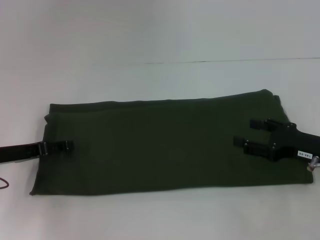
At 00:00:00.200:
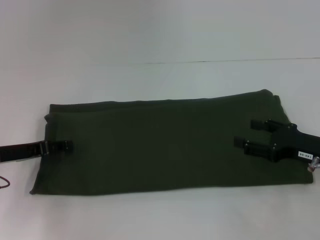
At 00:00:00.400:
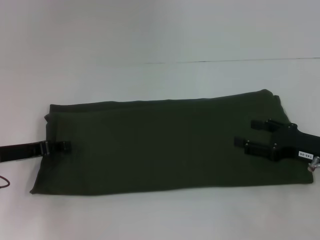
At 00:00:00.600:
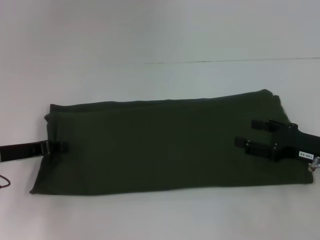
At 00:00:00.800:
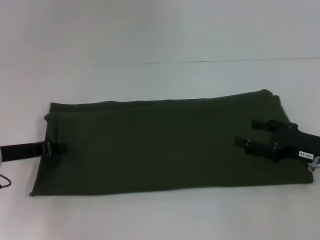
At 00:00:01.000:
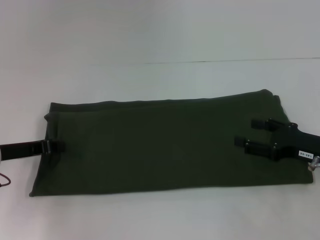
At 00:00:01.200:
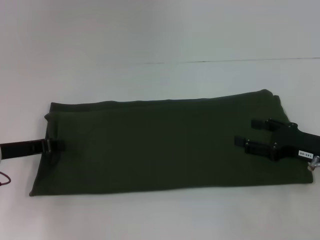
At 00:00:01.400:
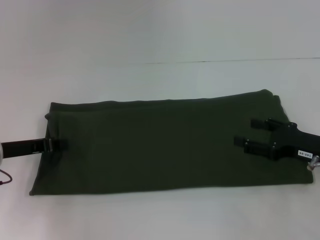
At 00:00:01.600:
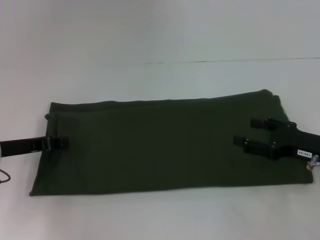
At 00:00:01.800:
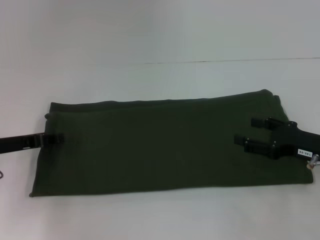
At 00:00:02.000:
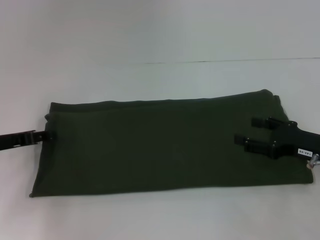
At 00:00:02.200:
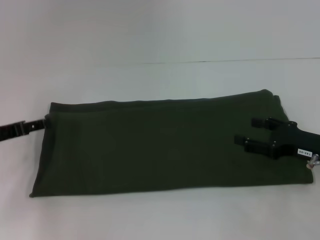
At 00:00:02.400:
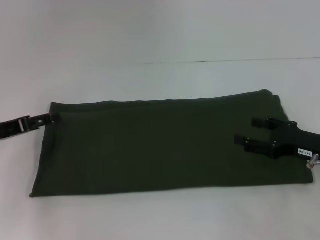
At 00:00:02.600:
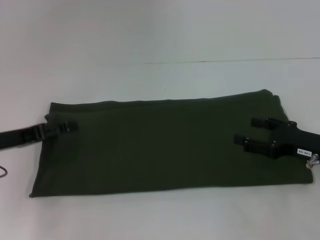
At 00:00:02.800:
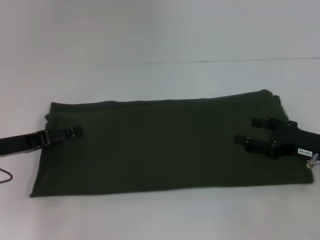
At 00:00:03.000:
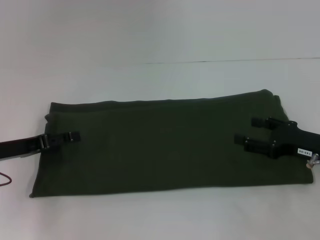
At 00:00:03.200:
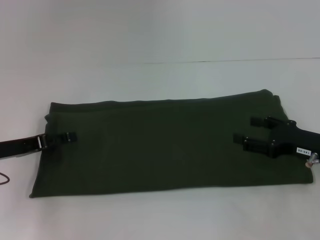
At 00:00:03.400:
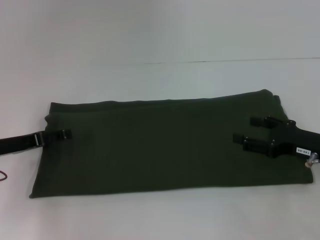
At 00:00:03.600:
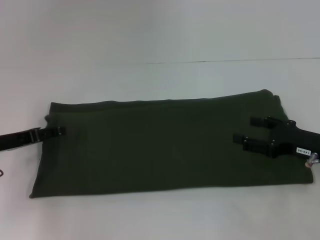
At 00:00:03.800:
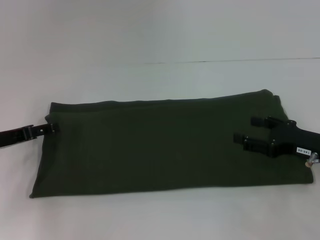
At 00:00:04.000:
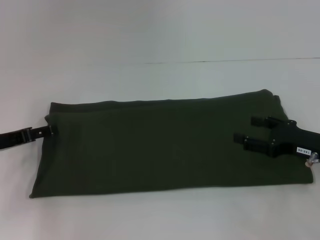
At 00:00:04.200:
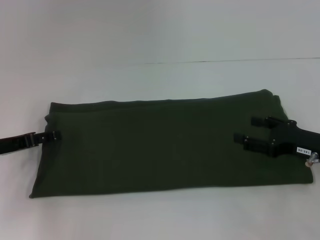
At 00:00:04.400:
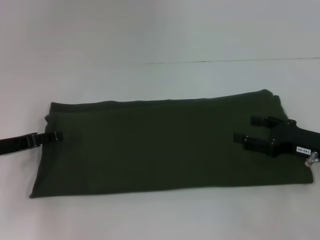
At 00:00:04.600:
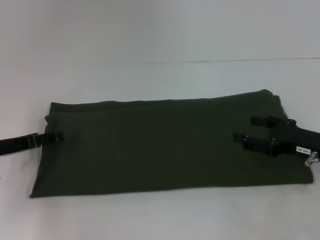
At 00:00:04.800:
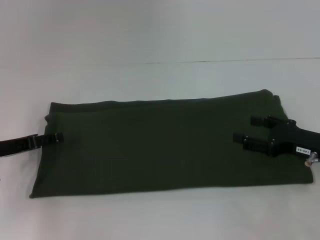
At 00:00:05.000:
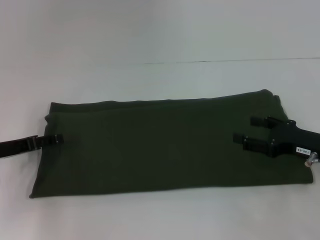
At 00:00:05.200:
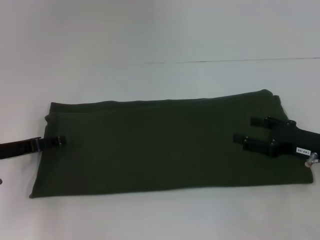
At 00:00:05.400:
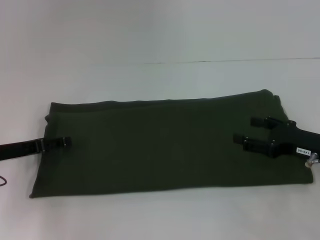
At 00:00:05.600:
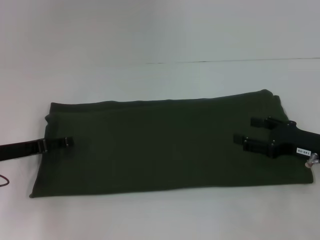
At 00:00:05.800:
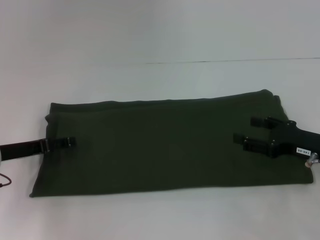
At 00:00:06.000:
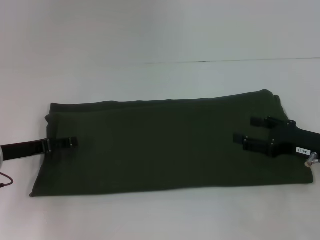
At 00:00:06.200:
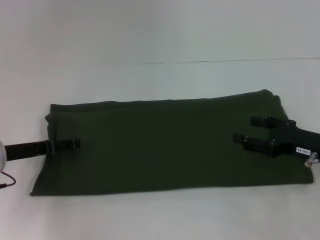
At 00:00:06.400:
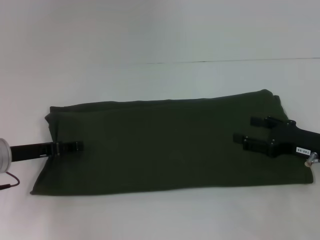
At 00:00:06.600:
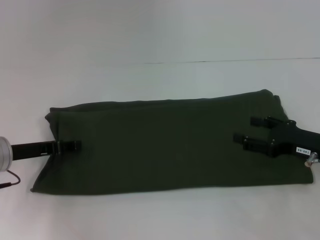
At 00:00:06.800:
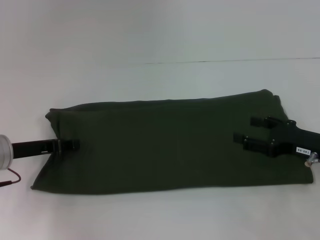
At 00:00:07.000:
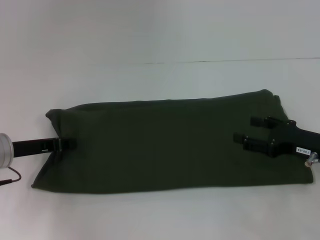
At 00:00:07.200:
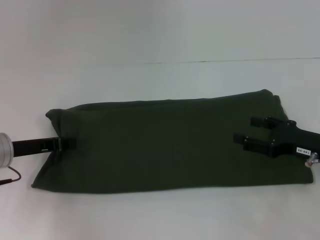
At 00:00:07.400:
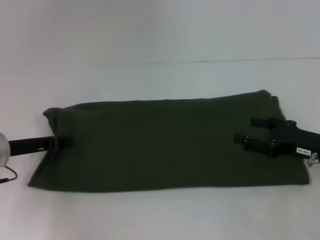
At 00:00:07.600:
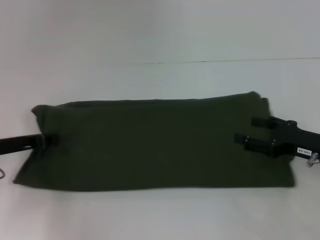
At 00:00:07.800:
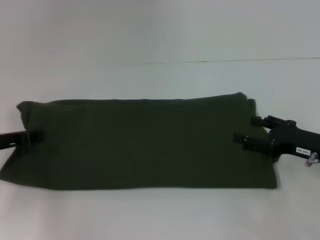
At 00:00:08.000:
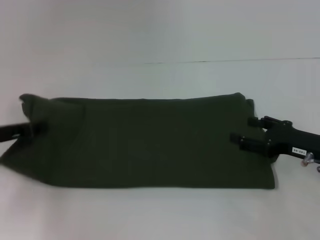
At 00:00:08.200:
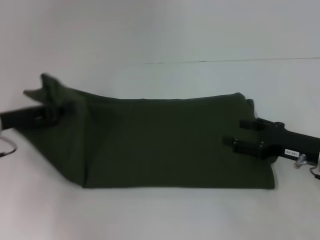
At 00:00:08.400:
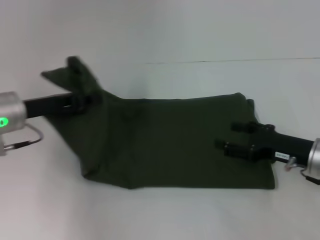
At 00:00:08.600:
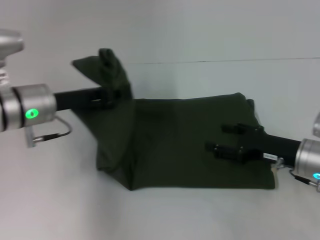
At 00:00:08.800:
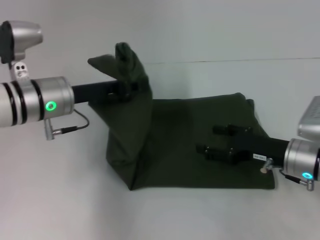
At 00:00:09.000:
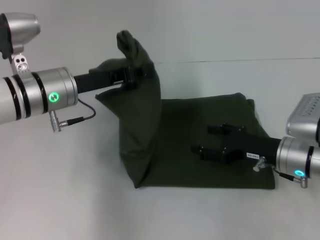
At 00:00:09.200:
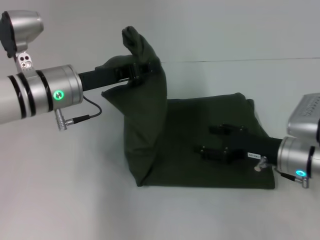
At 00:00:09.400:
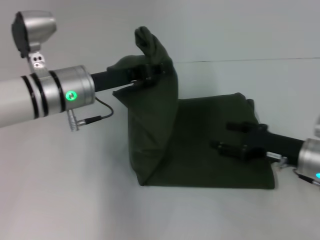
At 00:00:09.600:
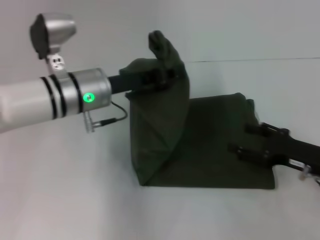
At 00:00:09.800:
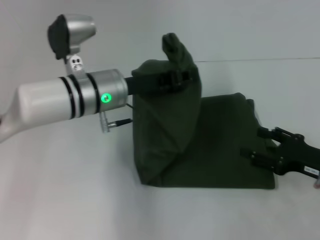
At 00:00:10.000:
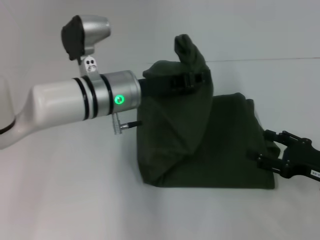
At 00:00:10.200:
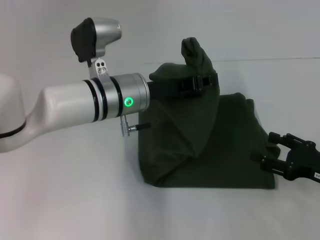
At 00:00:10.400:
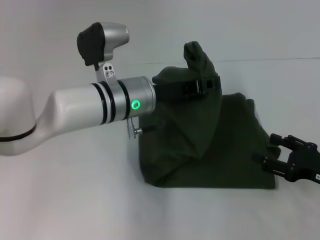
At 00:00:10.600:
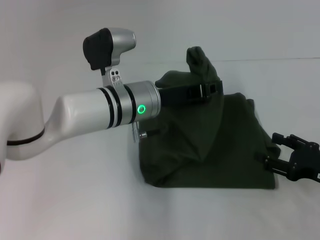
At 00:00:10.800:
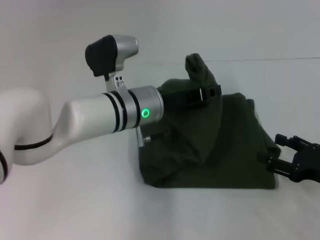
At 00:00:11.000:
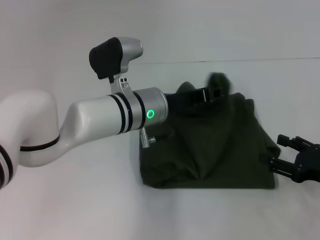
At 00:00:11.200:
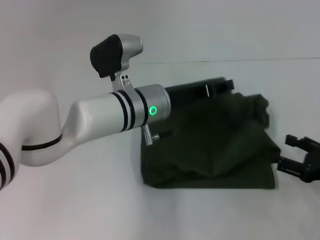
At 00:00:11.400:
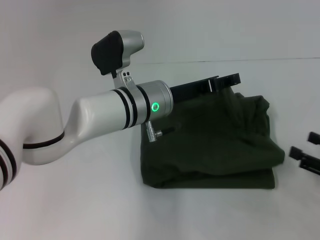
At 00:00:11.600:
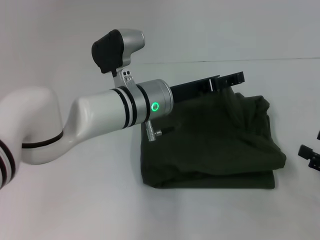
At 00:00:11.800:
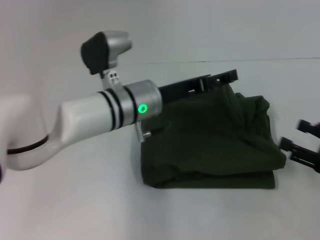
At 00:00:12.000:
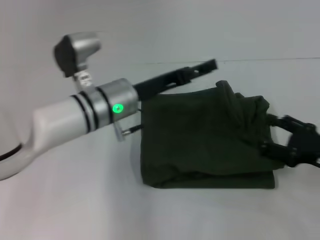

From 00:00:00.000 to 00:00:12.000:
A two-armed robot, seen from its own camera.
Step, from 00:00:00.000 to 00:00:11.600: Fold the clothes with your left hand.
From 00:00:00.000 to 00:00:01.600: The left gripper closes up.
From 00:00:01.600 to 00:00:03.000: The left gripper opens its fingers.
From 00:00:03.000 to 00:00:06.000: The grippers move only a little.
From 00:00:06.000 to 00:00:07.600: The left gripper closes.
From 00:00:07.600 to 00:00:09.000: The right gripper travels to the left by roughly 5 cm, while the left gripper moves to the right and upward, roughly 15 cm.
From 00:00:09.000 to 00:00:10.400: The left gripper goes some 10 cm to the right, while the right gripper moves to the right and backward, some 10 cm.
From 00:00:10.400 to 00:00:12.000: The left gripper opens its fingers.

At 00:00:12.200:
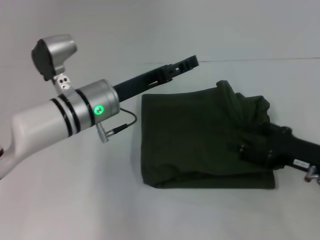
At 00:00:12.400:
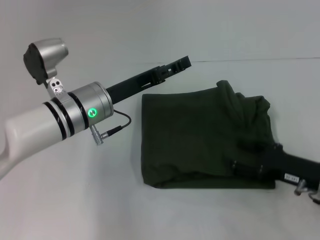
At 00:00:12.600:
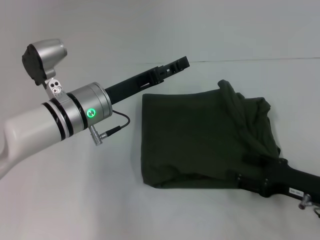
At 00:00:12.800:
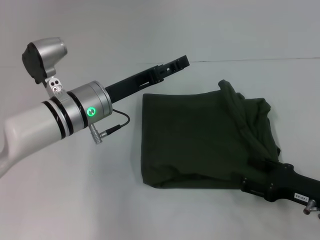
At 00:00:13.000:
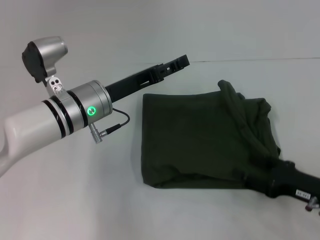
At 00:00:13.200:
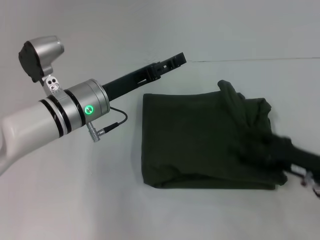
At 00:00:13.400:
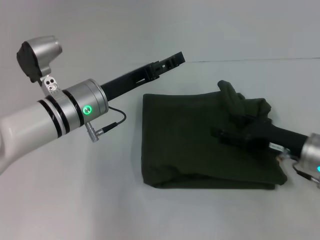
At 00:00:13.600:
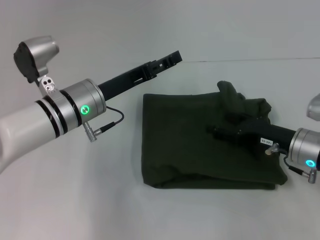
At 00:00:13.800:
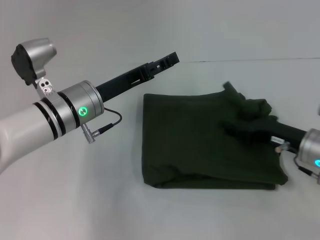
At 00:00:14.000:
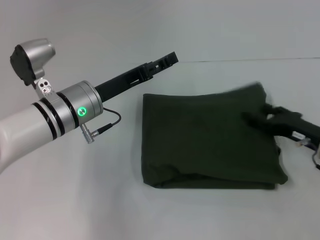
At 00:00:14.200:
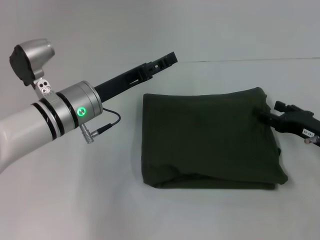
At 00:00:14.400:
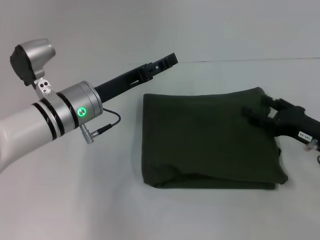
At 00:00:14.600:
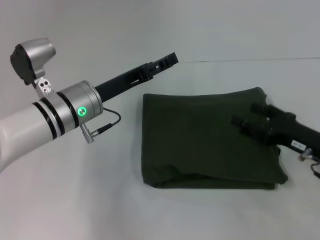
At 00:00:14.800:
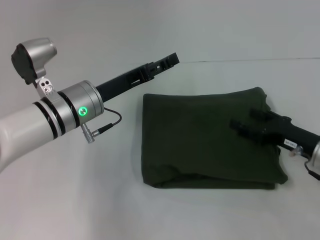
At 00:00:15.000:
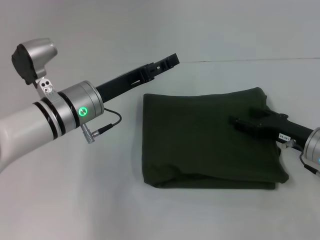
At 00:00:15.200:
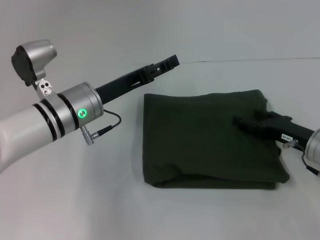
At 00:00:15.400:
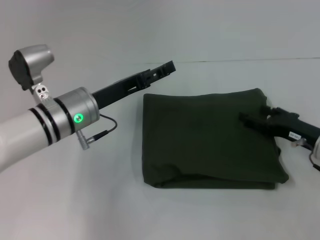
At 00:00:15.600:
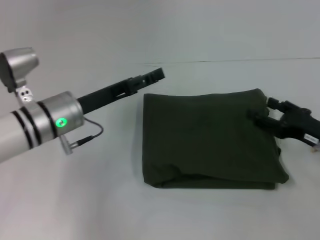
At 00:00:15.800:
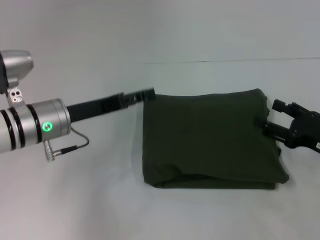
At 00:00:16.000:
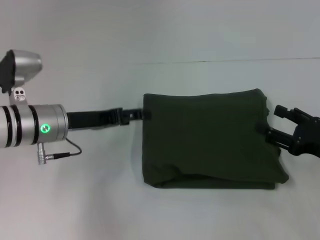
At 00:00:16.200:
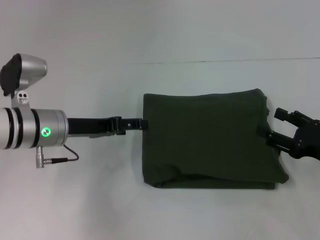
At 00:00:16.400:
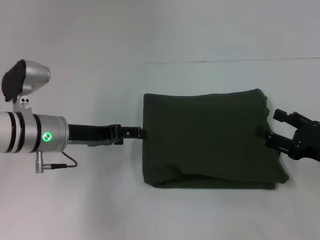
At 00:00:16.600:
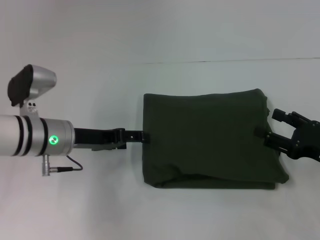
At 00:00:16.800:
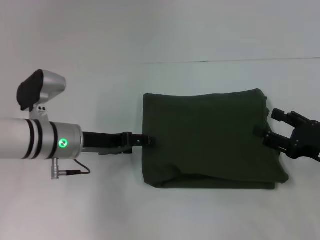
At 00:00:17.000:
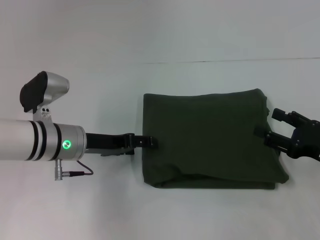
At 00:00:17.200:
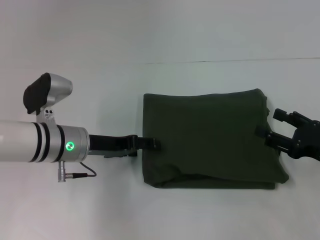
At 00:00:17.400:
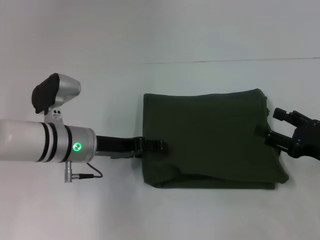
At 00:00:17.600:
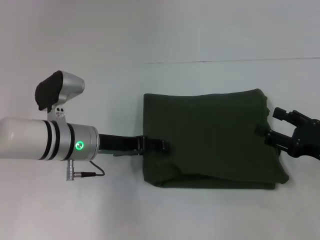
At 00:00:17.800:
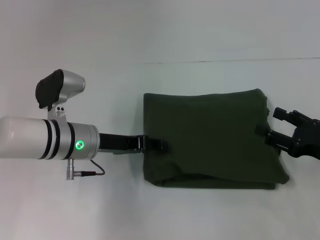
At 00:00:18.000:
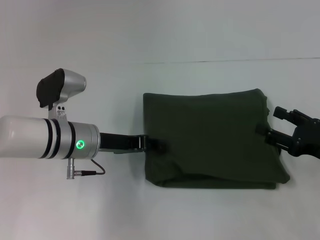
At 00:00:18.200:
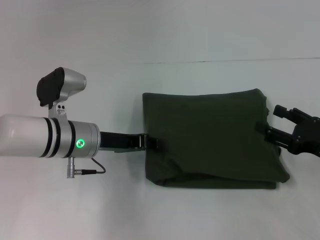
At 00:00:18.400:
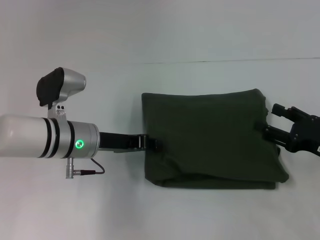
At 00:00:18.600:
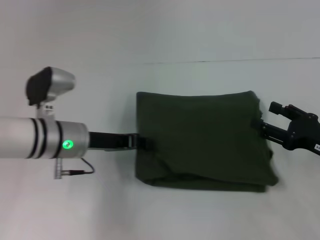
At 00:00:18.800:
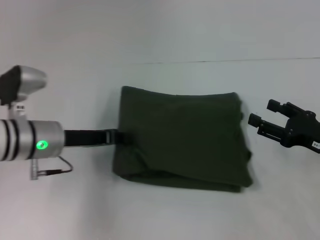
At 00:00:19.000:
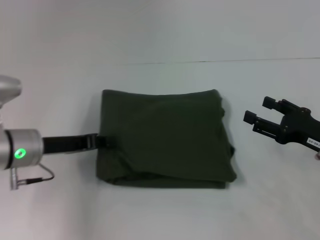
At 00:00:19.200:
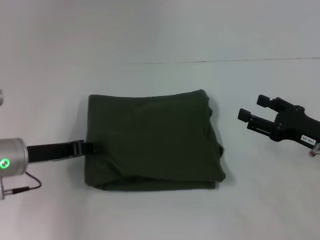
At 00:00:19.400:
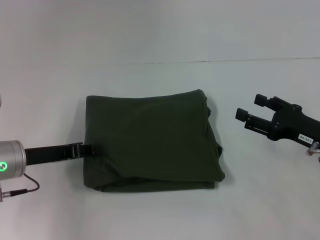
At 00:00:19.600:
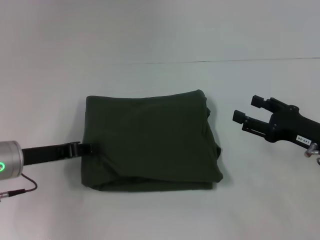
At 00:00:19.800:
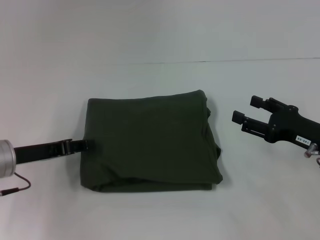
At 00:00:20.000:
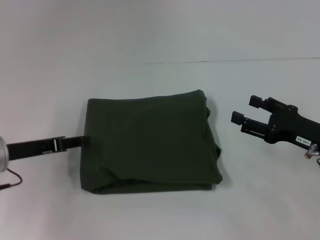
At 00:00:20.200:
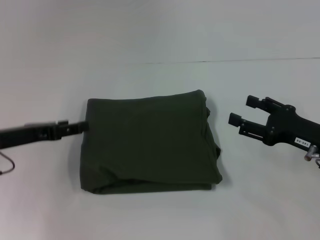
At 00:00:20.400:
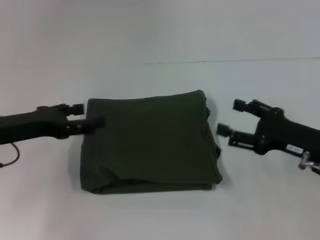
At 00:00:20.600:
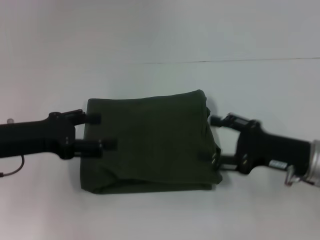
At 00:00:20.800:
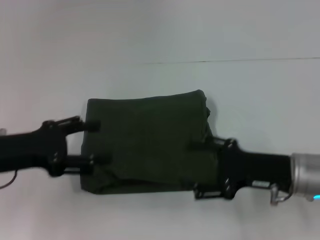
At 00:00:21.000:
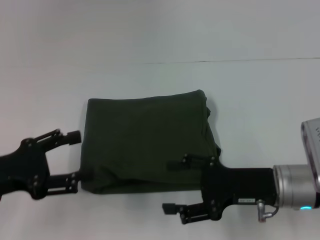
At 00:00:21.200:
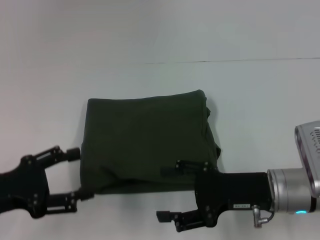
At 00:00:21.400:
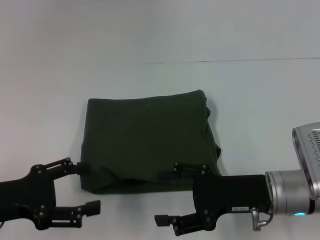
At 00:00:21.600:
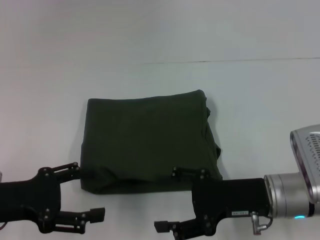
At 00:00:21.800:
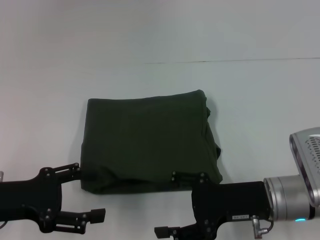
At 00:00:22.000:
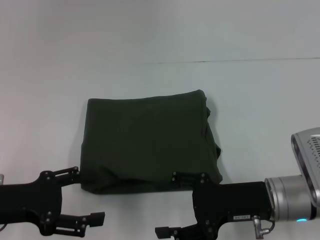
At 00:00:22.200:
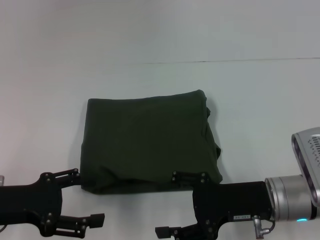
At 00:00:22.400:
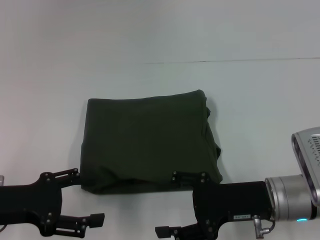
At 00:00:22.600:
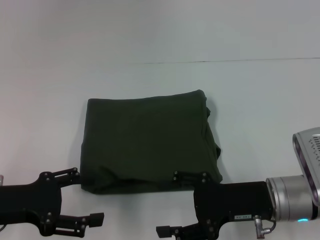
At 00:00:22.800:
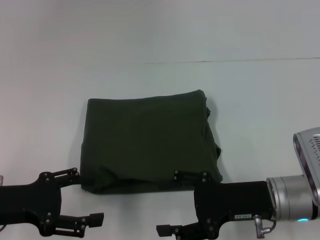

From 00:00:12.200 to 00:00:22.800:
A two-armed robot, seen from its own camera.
From 00:00:12.200 to 00:00:13.800: The right gripper changes place by approximately 5 cm.
From 00:00:13.800 to 00:00:15.200: The grippers make only small movements.
From 00:00:15.200 to 00:00:16.800: The right gripper moves backward, approximately 5 cm.
From 00:00:16.800 to 00:00:18.200: The left gripper closes up.
From 00:00:18.200 to 00:00:19.800: The left gripper is displaced to the left by roughly 10 cm.
From 00:00:19.800 to 00:00:21.200: The right gripper travels to the left by roughly 10 cm; the left gripper shifts roughly 10 cm backward, and opens up.
From 00:00:21.200 to 00:00:22.800: There are only small adjustments of the grippers.
